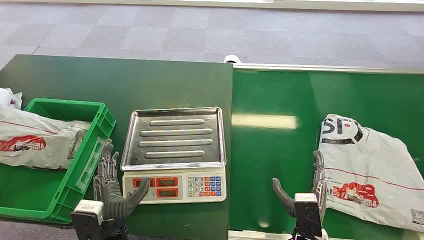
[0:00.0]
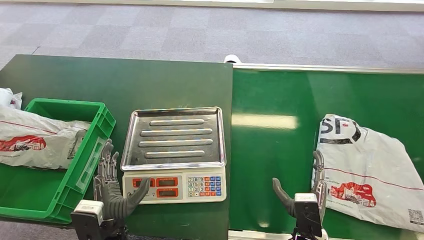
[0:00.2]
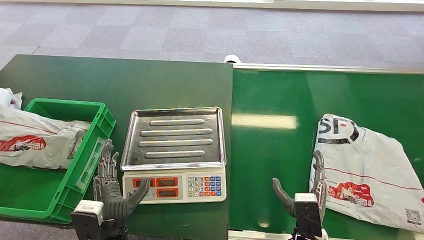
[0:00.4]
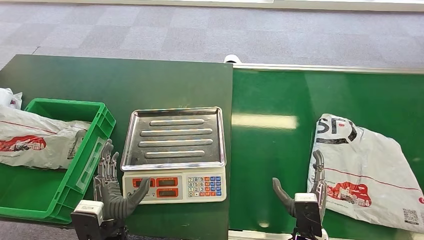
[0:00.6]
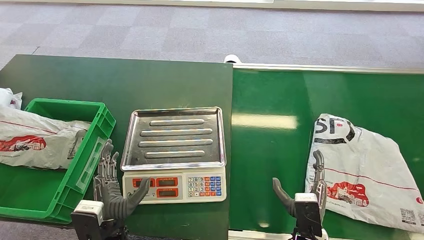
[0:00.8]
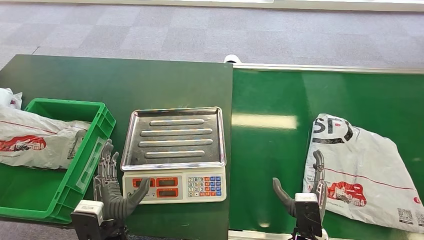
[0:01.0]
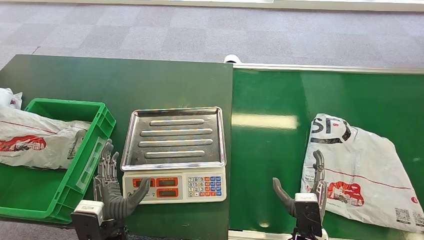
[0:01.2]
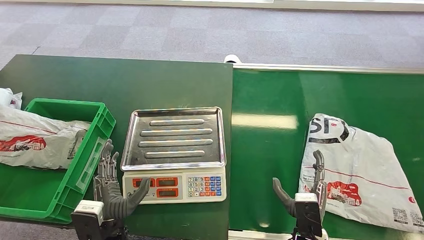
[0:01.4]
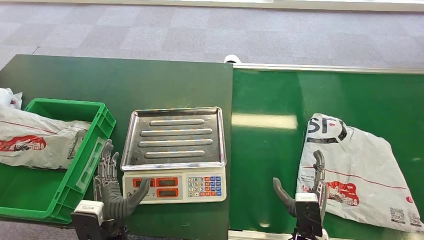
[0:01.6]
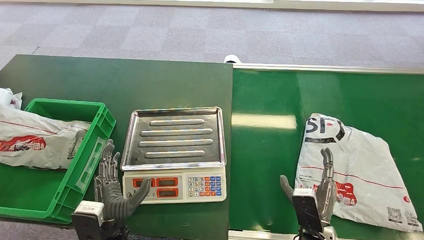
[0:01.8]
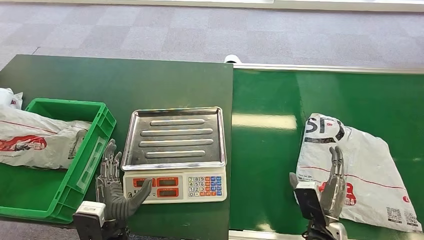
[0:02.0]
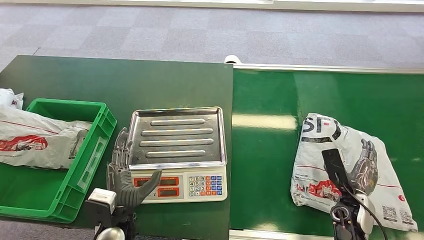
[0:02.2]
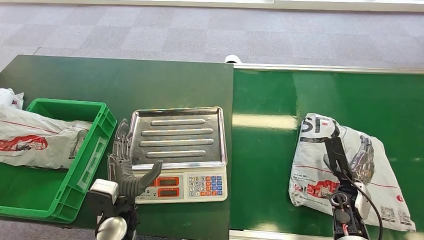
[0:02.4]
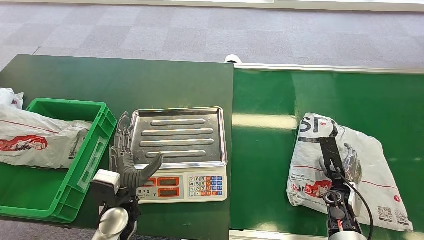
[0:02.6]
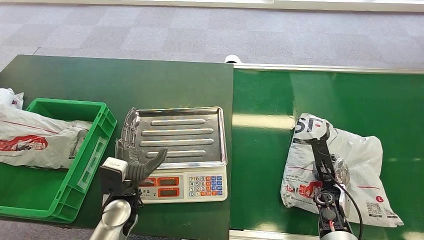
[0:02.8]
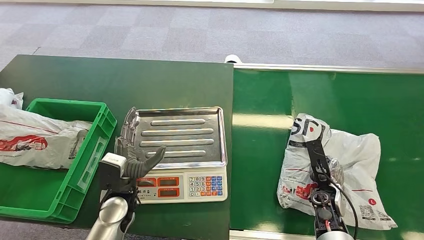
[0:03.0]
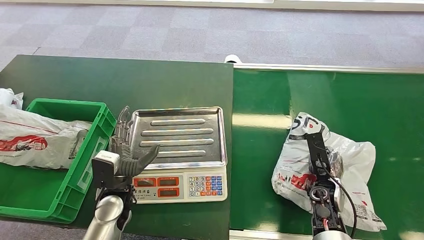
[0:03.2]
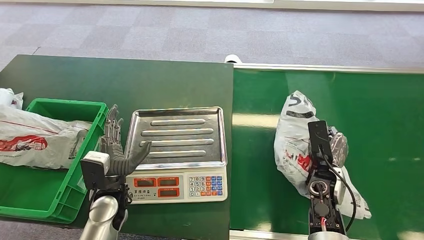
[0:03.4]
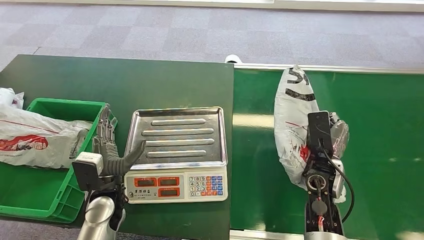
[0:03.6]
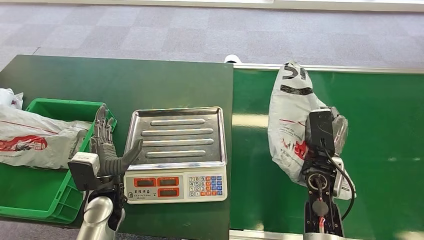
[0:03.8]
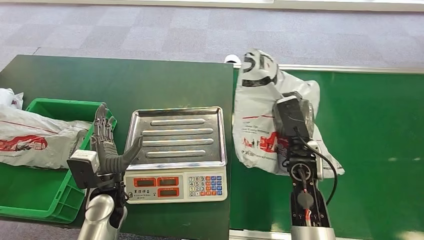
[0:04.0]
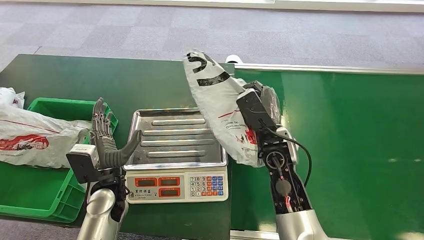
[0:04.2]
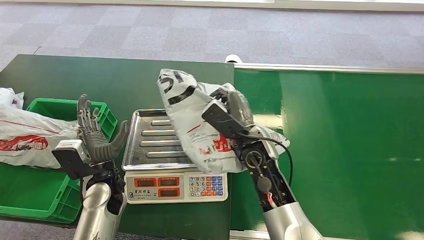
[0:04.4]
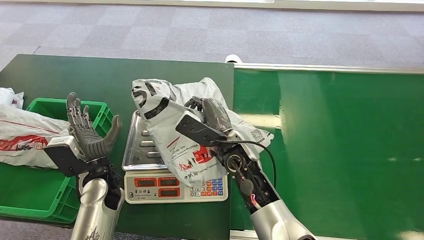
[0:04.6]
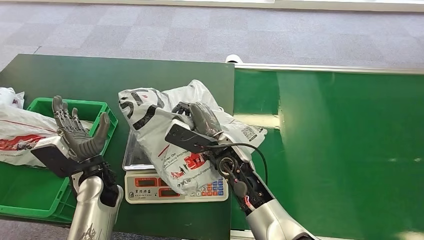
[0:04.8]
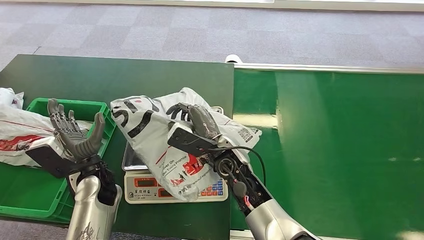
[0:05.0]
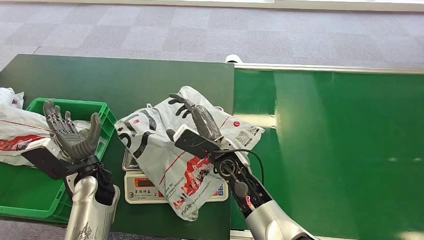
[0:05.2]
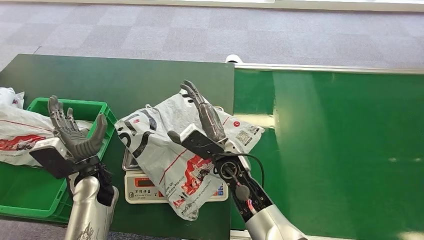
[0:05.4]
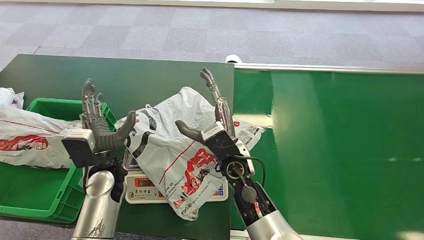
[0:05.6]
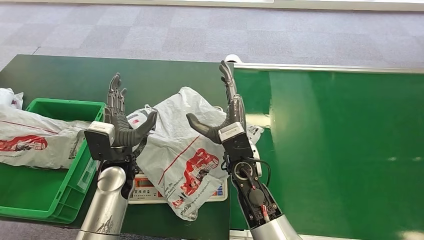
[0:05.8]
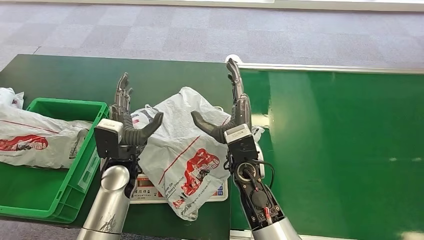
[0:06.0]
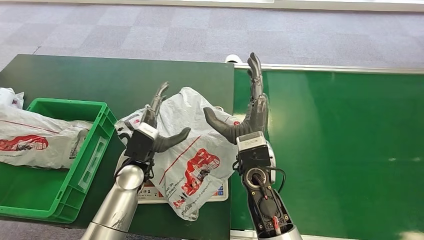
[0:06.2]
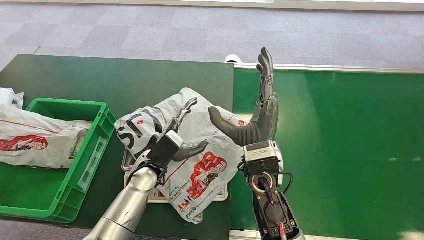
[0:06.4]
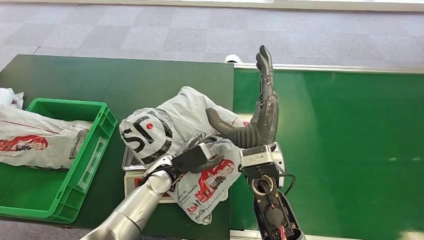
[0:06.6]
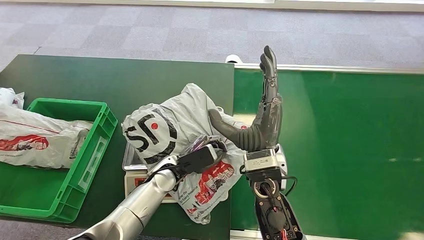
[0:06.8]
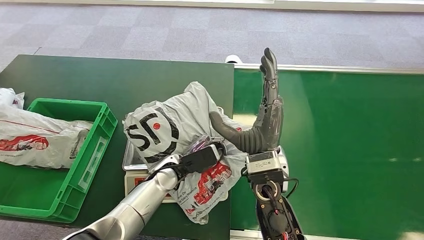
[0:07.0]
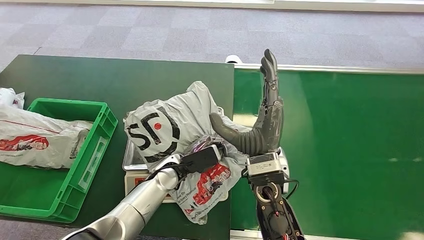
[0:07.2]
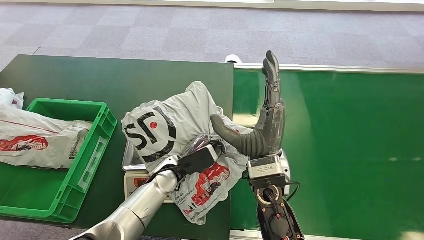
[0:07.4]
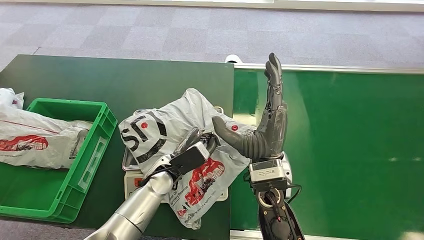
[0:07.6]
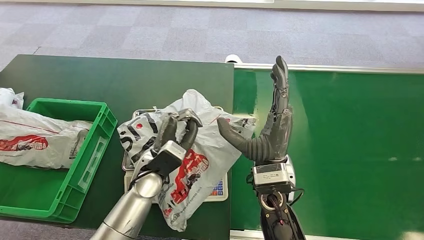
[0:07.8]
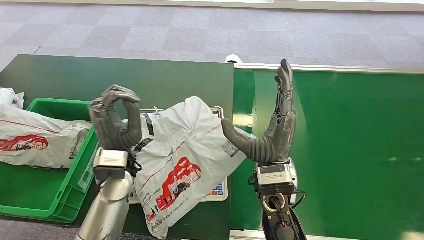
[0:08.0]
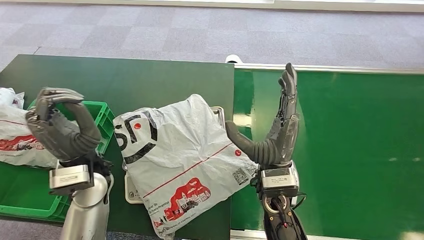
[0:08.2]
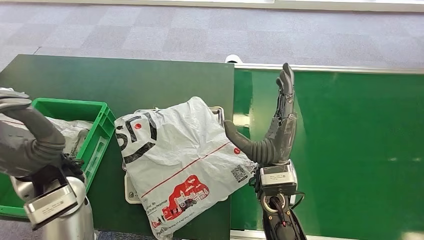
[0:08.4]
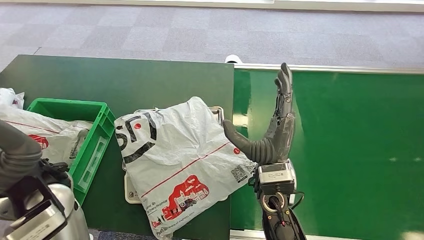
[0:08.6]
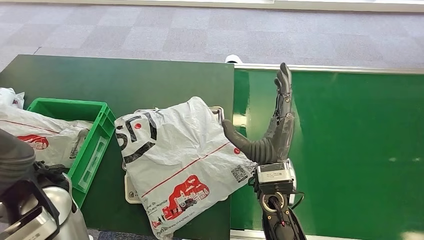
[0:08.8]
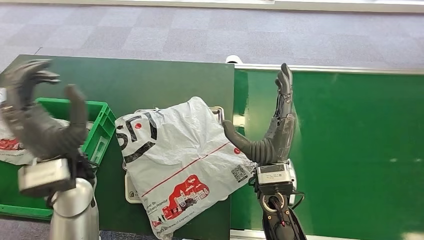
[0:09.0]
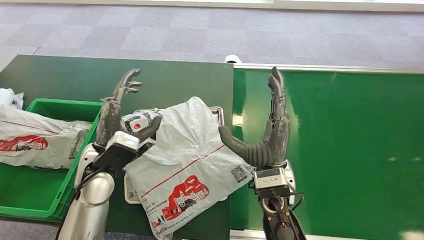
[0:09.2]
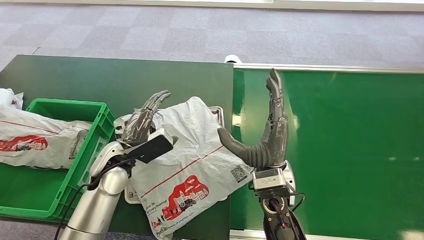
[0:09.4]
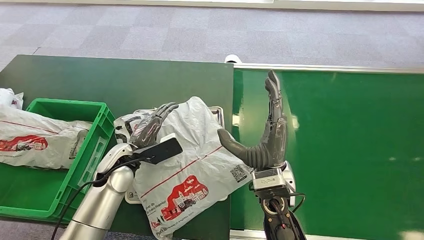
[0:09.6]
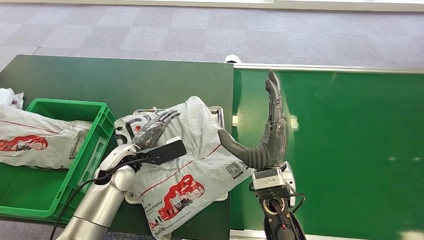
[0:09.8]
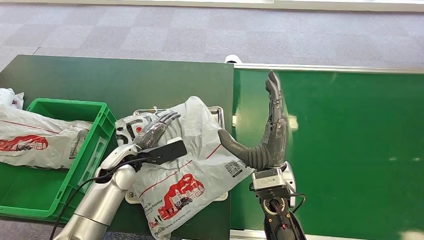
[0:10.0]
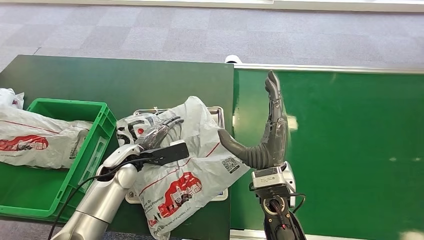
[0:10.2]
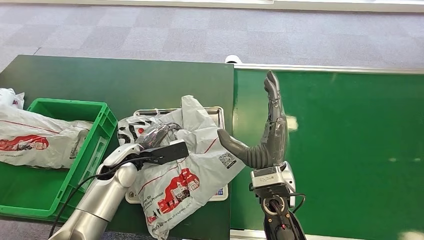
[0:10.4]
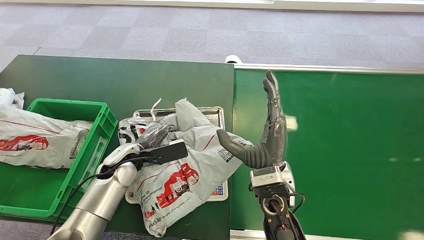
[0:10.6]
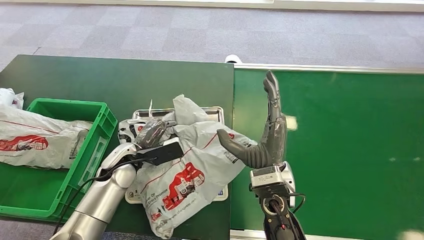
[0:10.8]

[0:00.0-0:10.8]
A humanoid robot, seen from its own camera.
Step, 0:00.0 to 0:03.8: Pick up the package from the conveyor belt.
Step, 0:04.0 to 0:05.8: Place the package onto the inbound machine.
0:01.6 to 0:03.0: The left hand travels forward by roughly 10 cm, while the right hand heads forward and to the right, covering roughly 20 cm.
0:07.8 to 0:09.2: The left hand heads to the left and upward, covering roughly 10 cm.
0:09.2 to 0:10.8: The left hand travels downward and forward by about 10 cm.

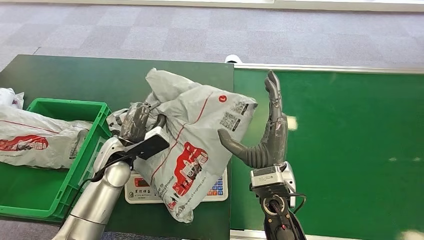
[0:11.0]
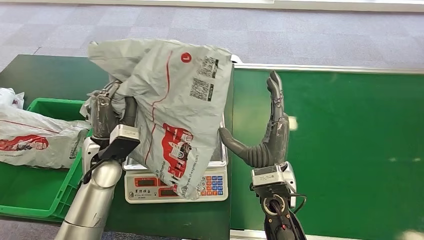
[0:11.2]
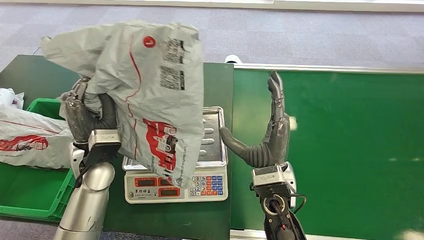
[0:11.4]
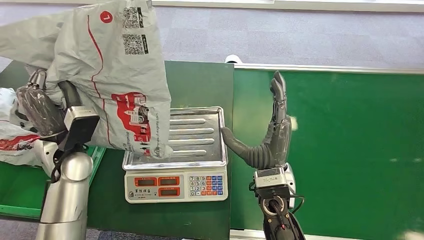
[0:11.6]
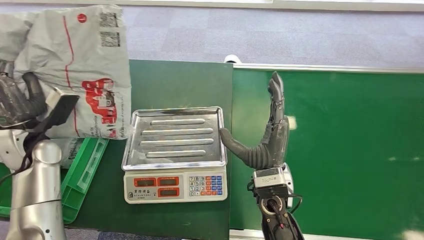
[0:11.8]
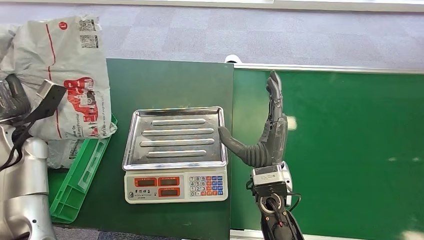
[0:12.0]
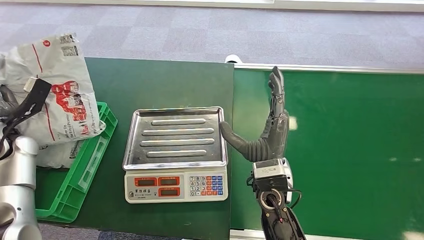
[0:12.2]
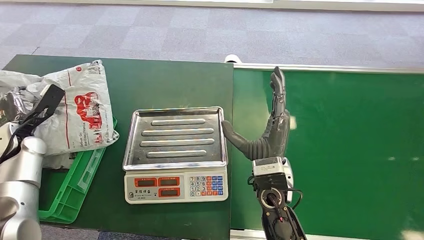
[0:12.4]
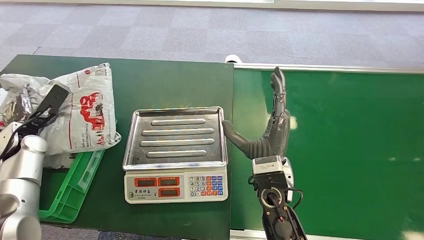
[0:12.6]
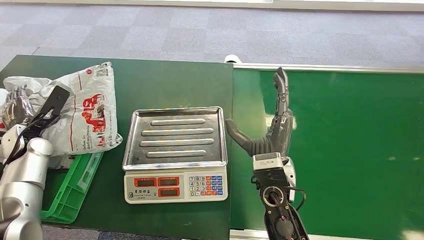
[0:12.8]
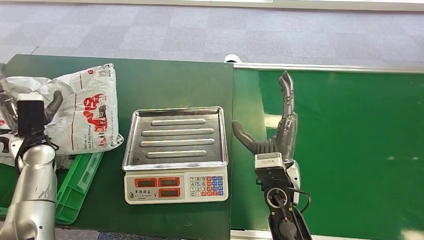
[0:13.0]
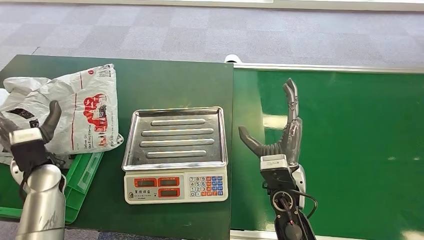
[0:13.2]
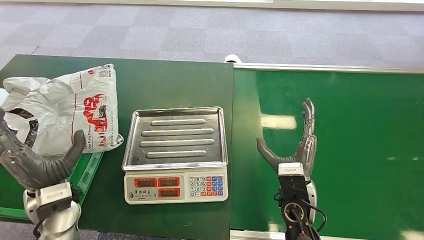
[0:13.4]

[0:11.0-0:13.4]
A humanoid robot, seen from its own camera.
Step, 0:11.6 to 0:13.4: Place the package into the parcel locker.

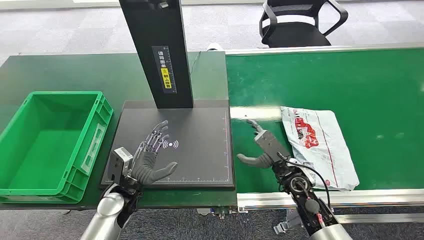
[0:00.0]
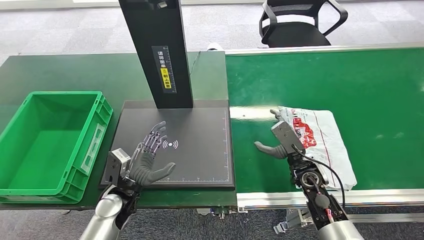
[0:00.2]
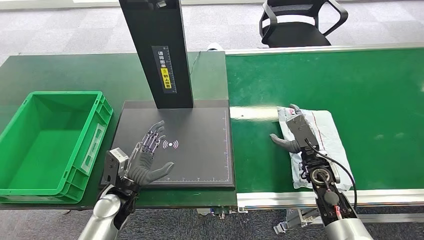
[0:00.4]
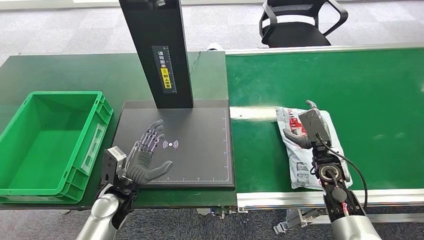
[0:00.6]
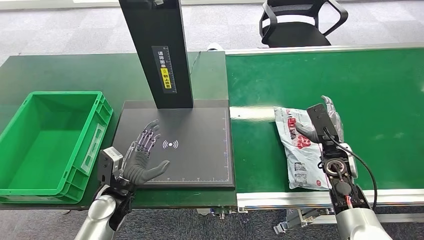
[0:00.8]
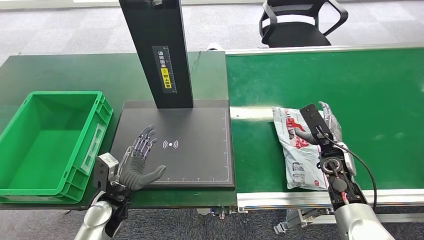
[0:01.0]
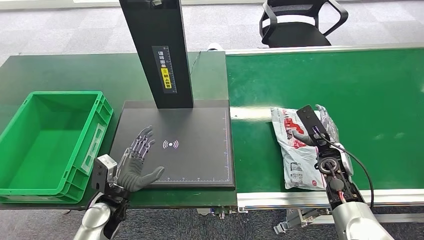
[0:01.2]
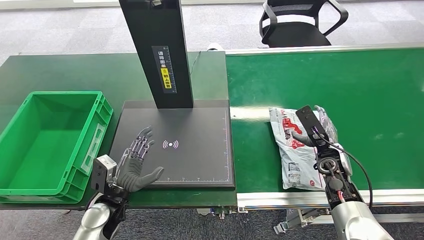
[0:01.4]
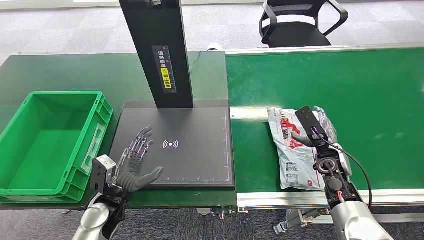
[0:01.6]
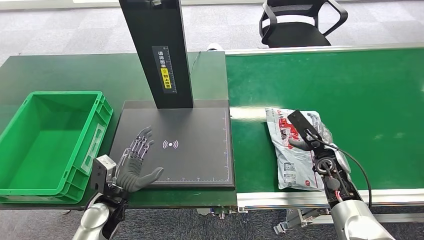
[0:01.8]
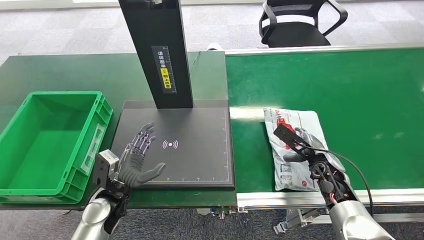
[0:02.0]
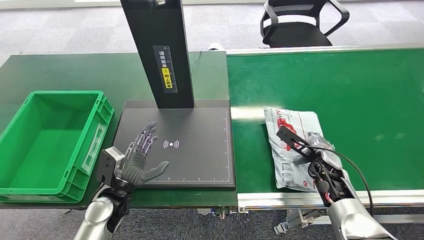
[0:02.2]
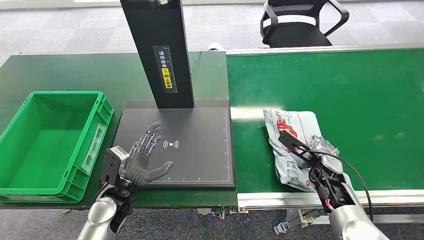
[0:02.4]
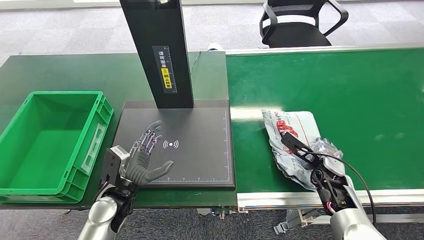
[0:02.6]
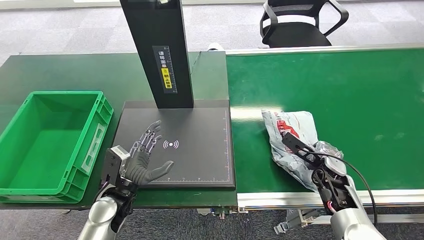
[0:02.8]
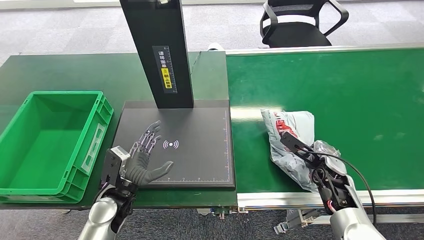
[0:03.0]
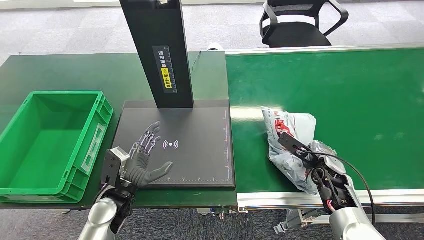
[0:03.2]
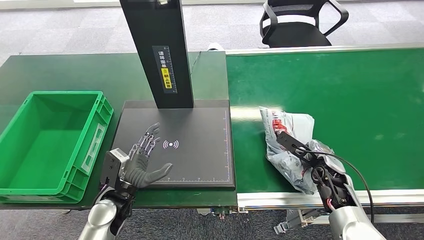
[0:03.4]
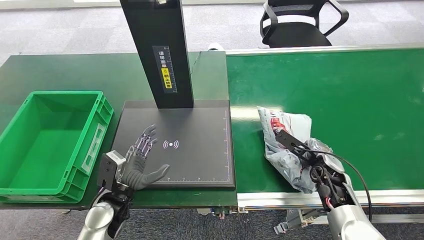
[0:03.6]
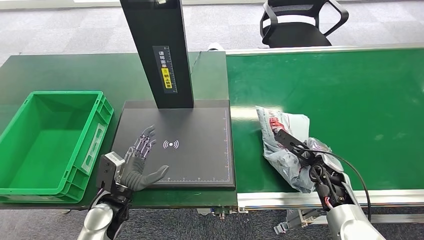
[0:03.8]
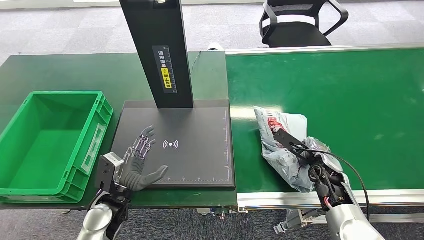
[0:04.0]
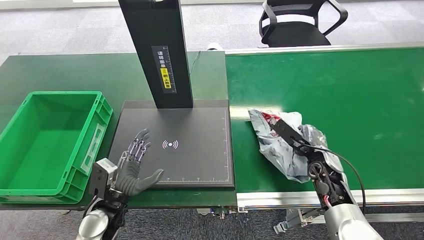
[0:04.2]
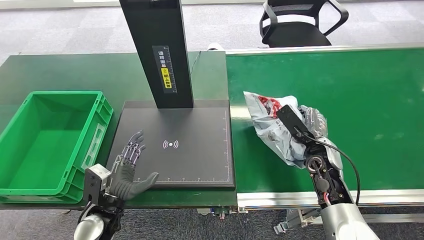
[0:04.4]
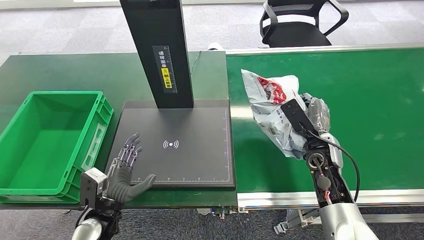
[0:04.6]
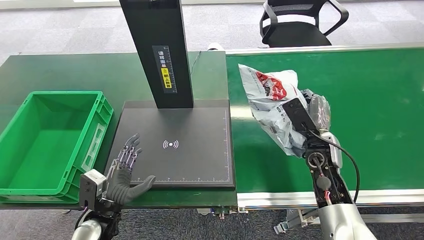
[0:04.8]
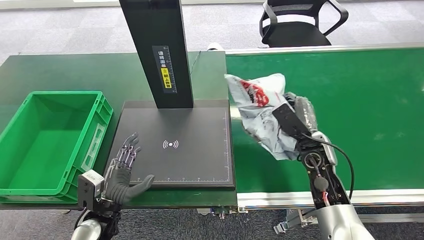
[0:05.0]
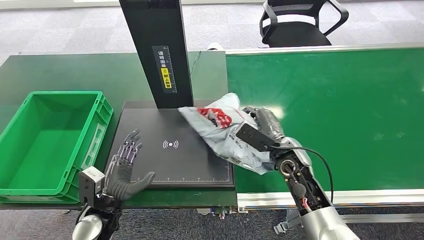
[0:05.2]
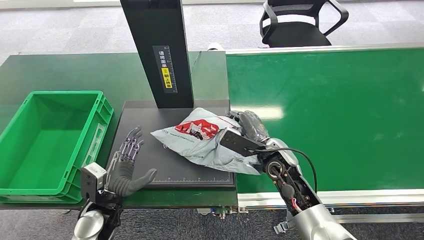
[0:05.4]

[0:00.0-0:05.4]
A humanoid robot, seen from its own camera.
Step, 0:00.0 to 0:04.6: Pick up the package from the conveyor belt.
0:02.8 to 0:04.0: The hands stay close to where they were, moving slightly.
0:04.0 to 0:05.4: The right hand shifts approximately 15 cm to the left.
